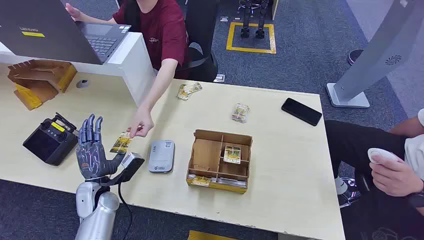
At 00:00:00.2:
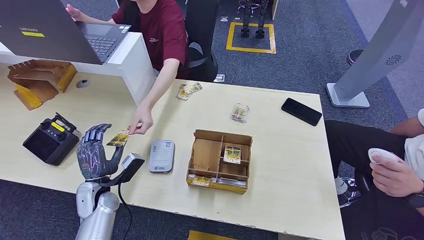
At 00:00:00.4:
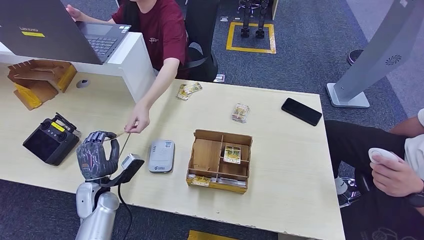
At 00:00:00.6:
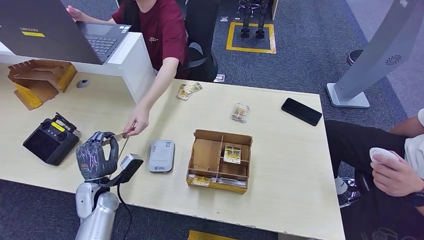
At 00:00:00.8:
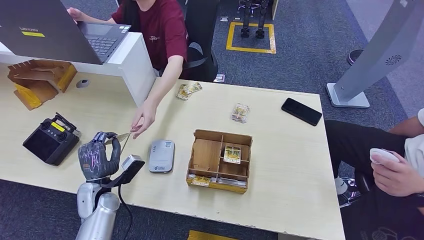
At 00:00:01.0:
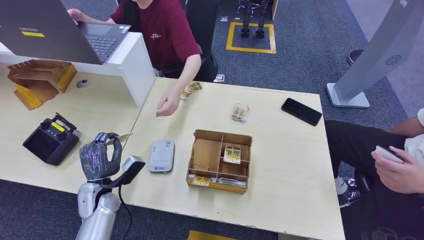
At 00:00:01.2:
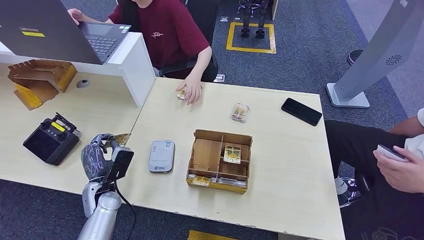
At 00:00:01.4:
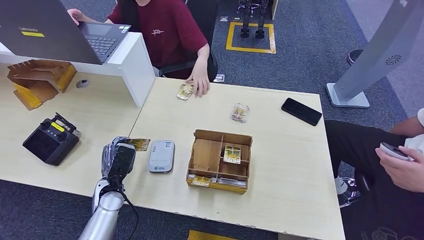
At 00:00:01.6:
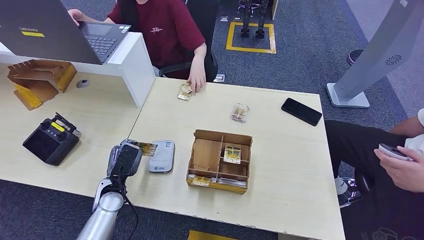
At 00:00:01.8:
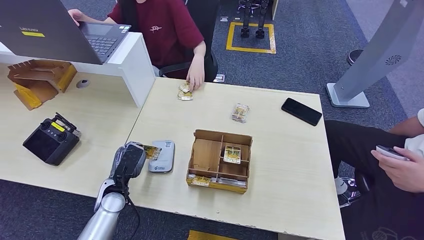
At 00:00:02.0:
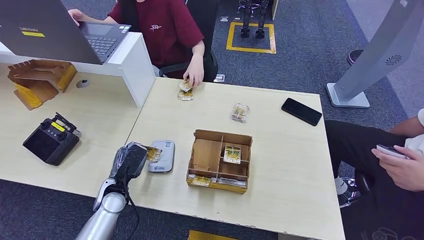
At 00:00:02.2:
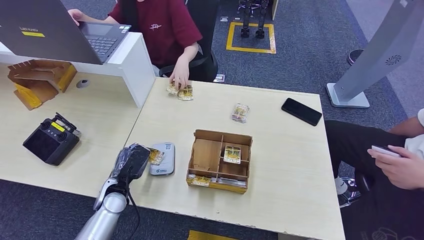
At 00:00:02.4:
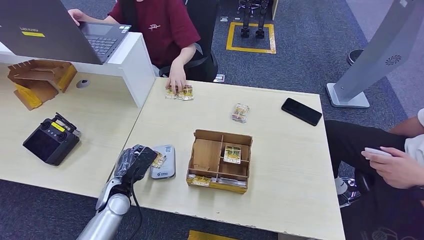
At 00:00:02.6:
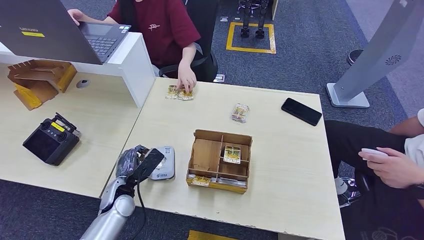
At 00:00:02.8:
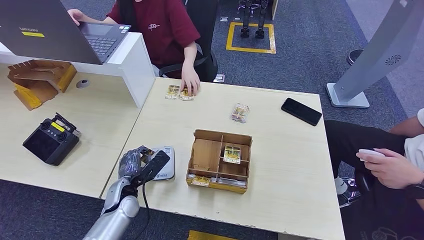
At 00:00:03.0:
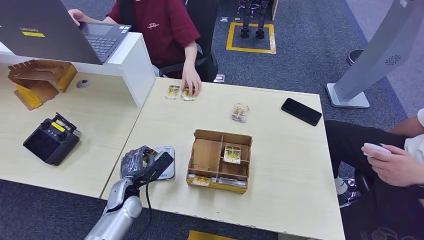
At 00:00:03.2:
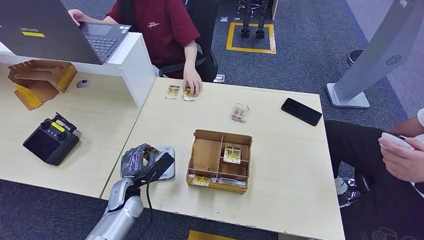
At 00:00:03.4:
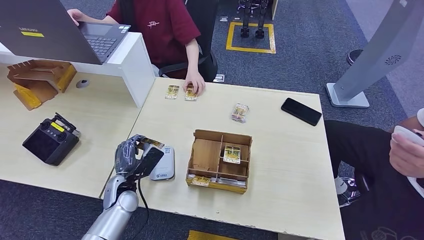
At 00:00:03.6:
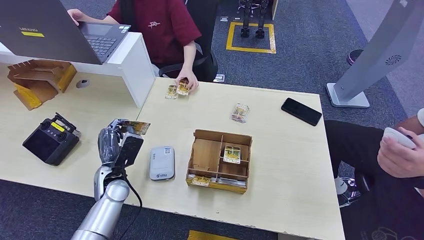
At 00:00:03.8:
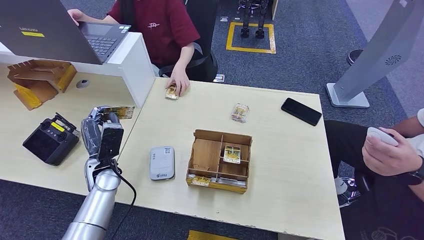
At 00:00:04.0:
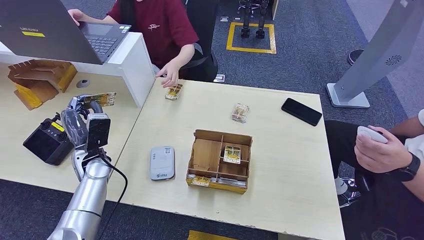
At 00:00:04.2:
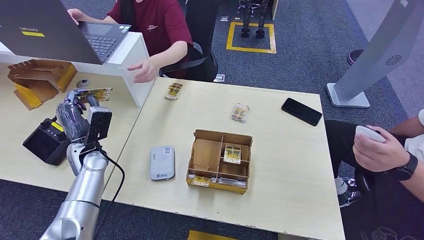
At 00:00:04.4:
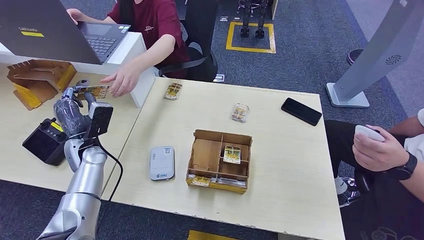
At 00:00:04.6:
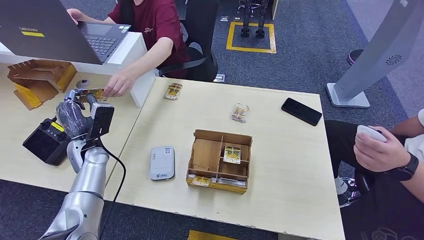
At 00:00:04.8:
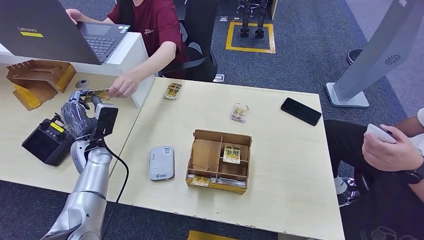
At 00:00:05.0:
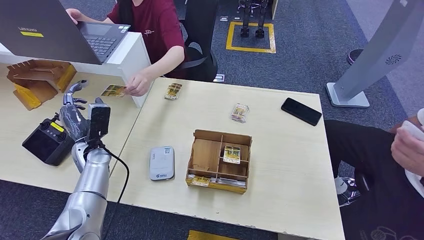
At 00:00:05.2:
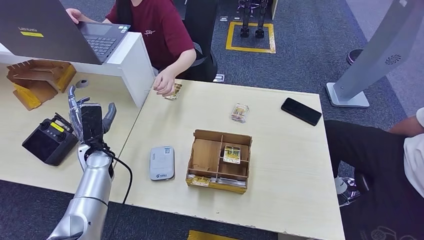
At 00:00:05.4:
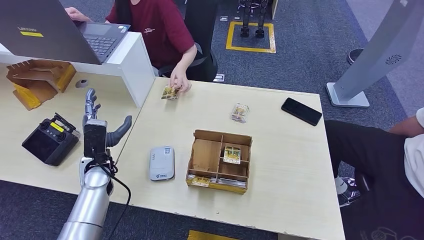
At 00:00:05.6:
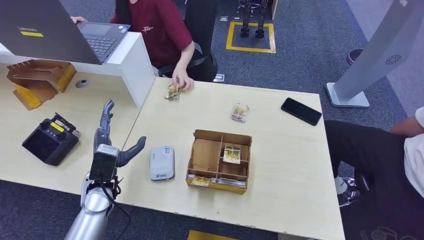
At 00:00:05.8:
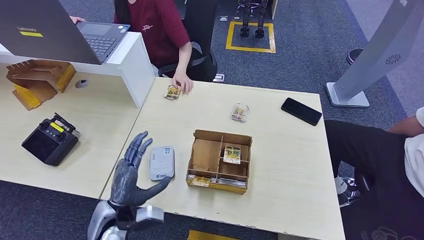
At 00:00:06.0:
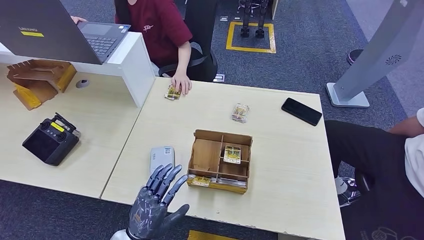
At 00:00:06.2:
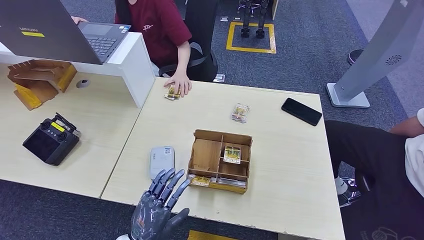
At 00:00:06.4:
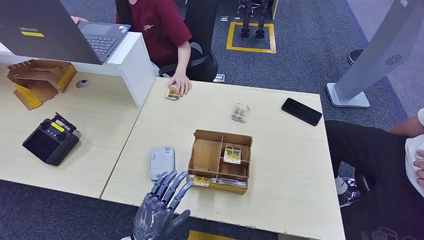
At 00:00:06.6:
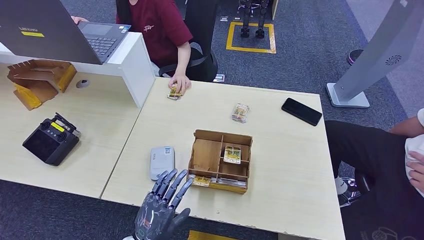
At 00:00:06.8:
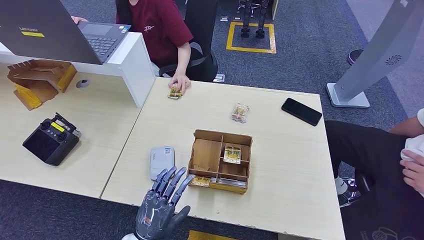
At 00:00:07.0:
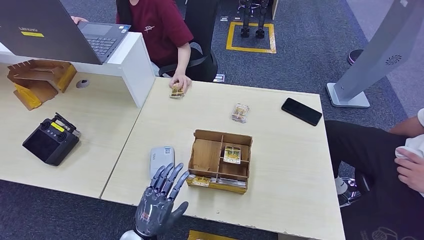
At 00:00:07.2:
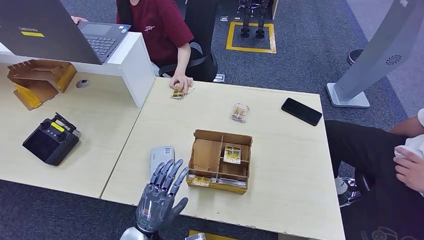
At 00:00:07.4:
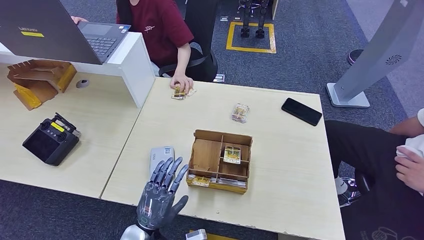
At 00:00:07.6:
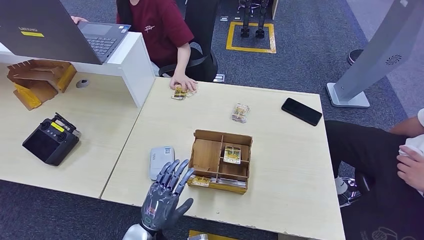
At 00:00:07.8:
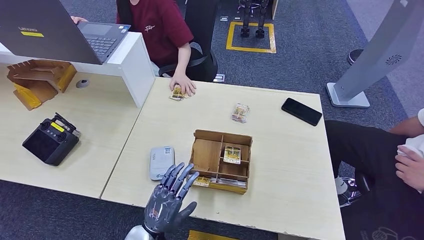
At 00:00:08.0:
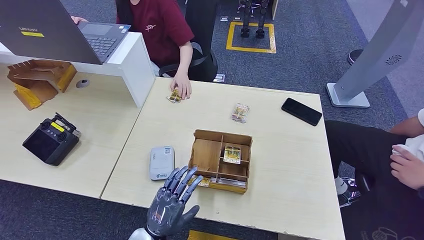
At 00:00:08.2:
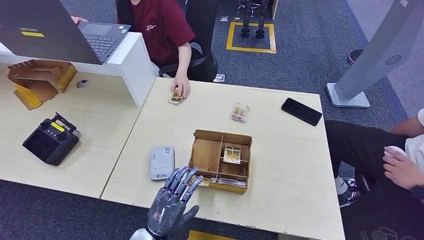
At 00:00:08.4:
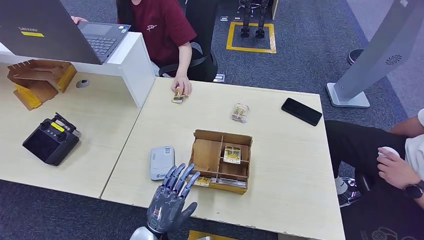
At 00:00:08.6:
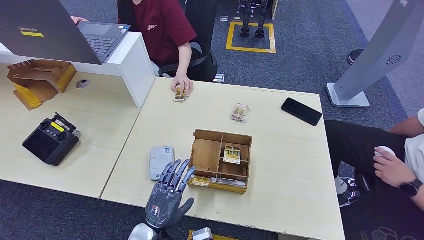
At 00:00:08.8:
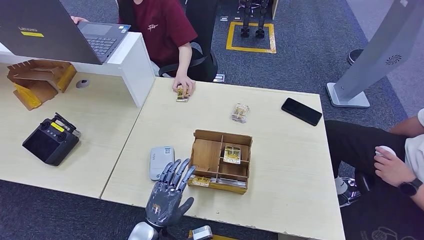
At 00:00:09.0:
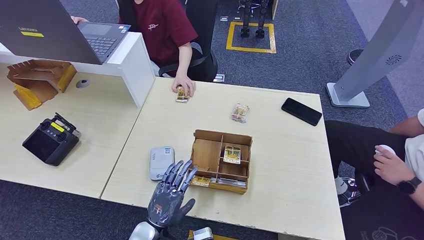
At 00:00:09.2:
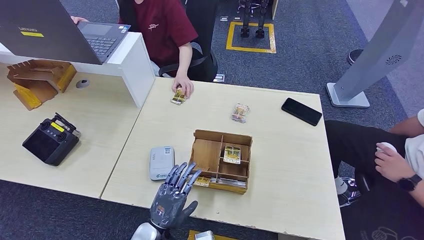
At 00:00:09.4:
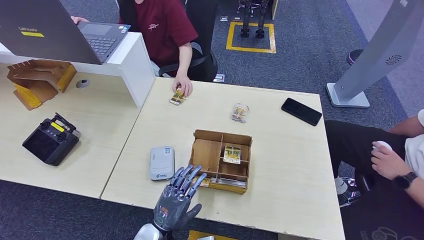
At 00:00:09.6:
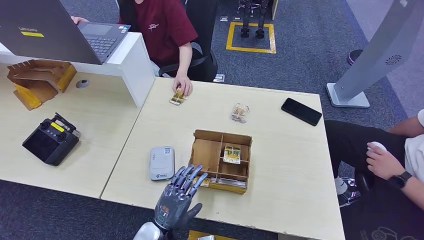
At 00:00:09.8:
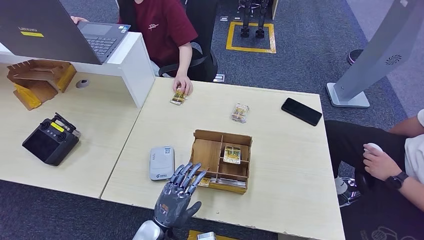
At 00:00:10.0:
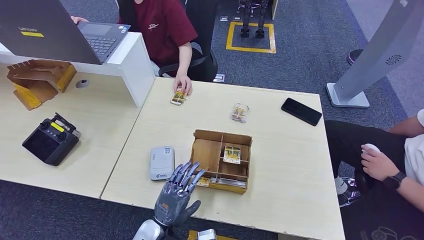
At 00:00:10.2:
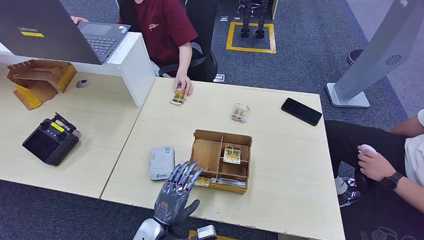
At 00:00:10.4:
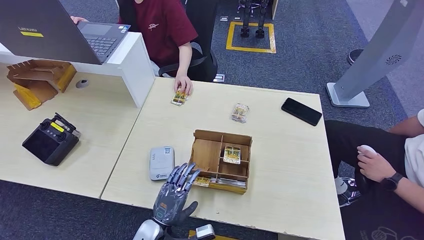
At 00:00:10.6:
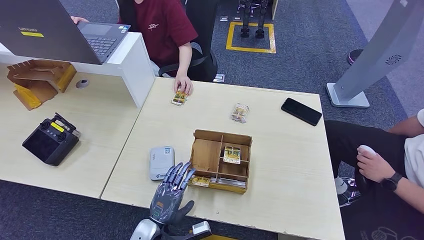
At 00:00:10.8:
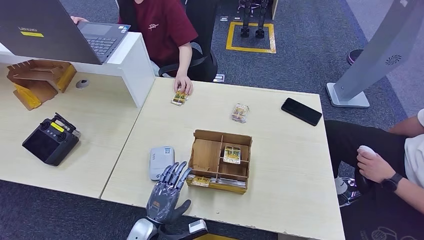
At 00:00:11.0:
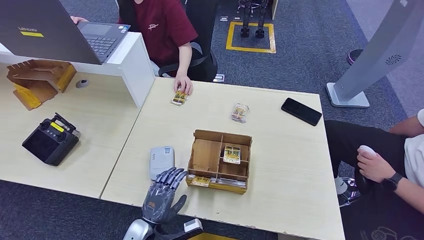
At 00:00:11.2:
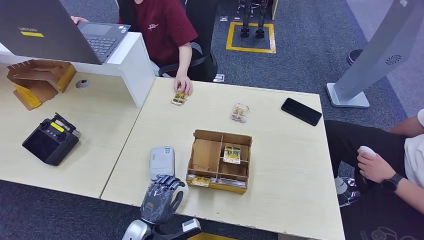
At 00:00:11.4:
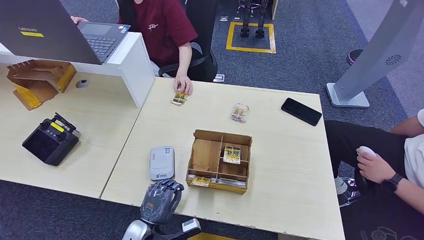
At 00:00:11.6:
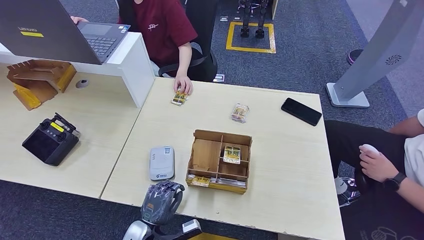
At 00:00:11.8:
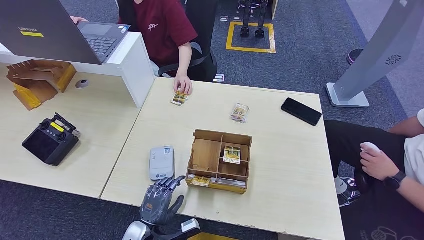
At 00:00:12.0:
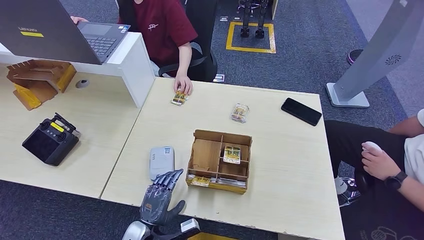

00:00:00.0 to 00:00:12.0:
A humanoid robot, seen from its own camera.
Step, 00:00:00.0 to 00:00:00.6: Take the ID card from the person's hand.
Step, 00:00:01.0 to 00:00:03.6: Place the ID card on the card reader.
Step, 00:00:03.8 to 00:00:05.2: Hand the ID card to the person.
00:00:03.0 to 00:00:04.4: The left hand travels upward, to the left and forward by roughly 20 cm.
00:00:04.4 to 00:00:06.0: The left hand heads backward and to the right, covering some 25 cm.
00:00:06.0 to 00:00:09.0: The hands move only a little.
00:00:09.0 to 00:00:12.0: The hands make only small movements.

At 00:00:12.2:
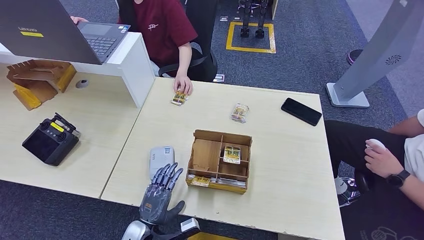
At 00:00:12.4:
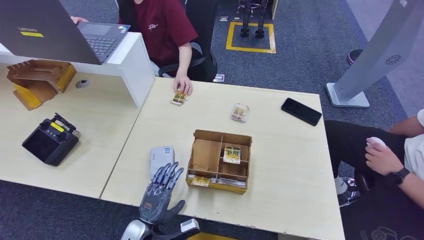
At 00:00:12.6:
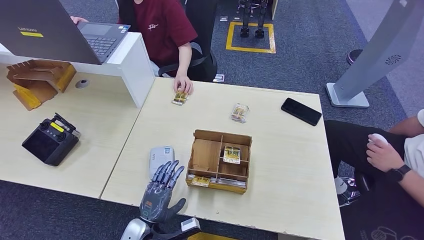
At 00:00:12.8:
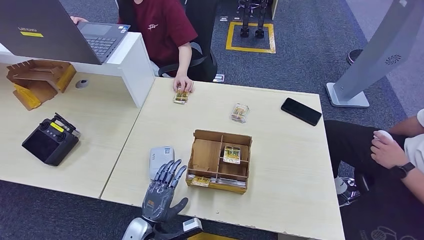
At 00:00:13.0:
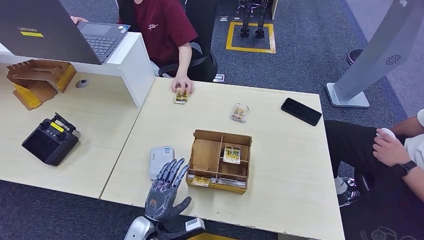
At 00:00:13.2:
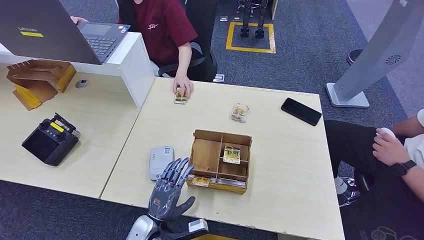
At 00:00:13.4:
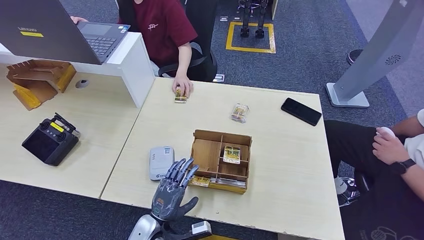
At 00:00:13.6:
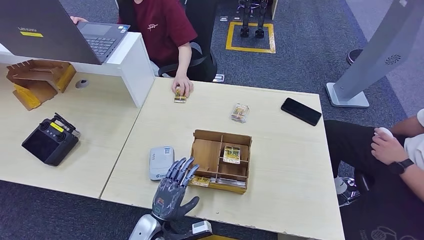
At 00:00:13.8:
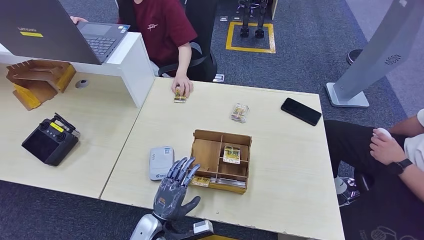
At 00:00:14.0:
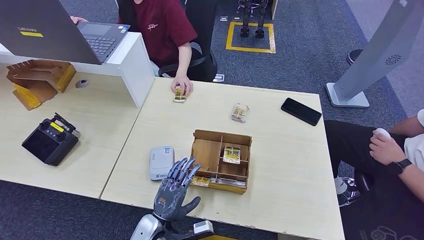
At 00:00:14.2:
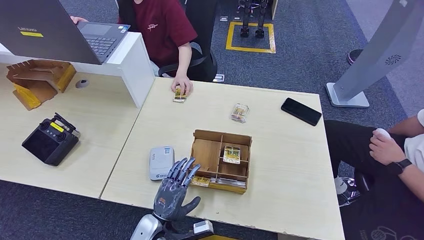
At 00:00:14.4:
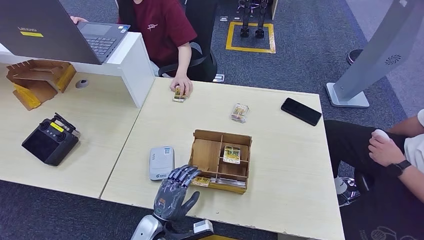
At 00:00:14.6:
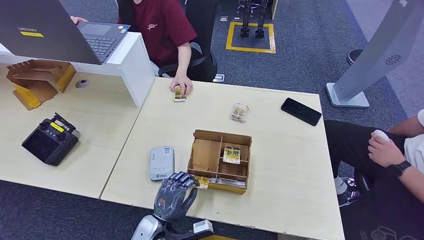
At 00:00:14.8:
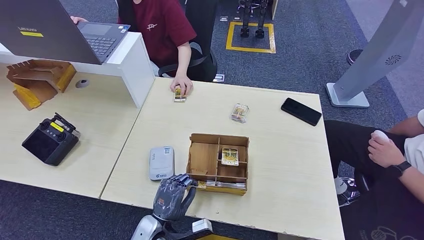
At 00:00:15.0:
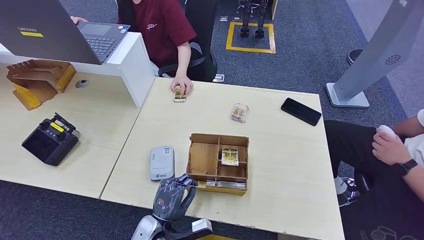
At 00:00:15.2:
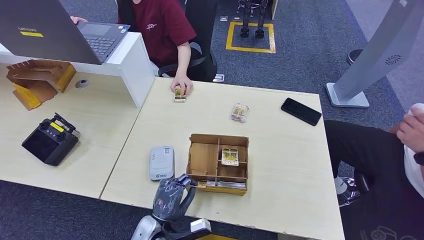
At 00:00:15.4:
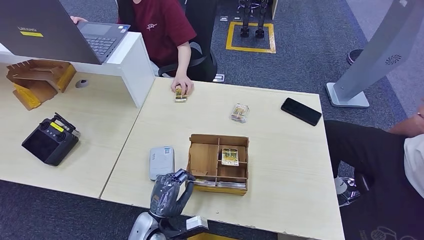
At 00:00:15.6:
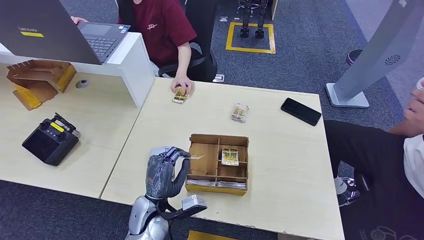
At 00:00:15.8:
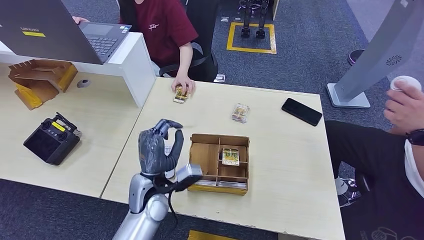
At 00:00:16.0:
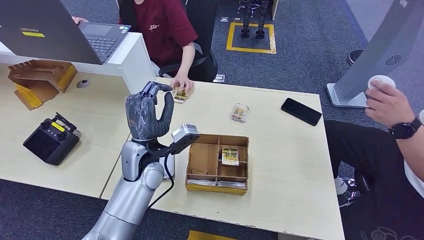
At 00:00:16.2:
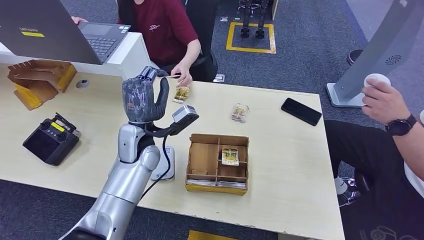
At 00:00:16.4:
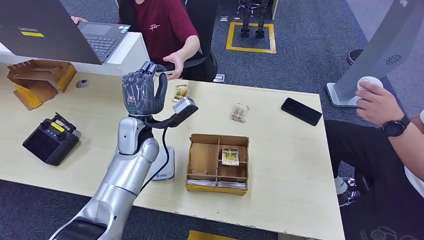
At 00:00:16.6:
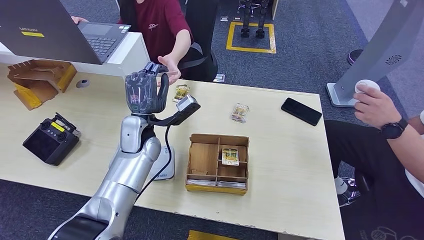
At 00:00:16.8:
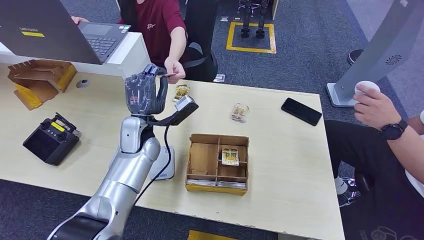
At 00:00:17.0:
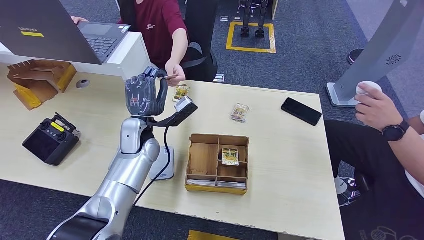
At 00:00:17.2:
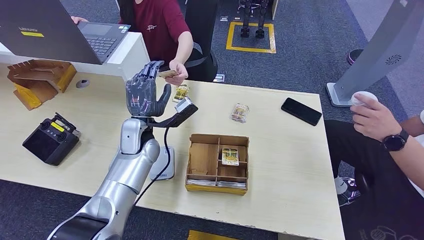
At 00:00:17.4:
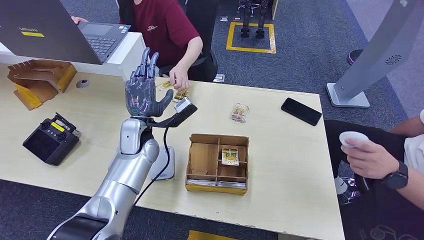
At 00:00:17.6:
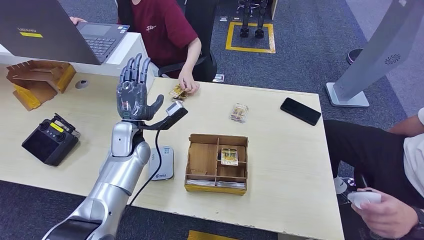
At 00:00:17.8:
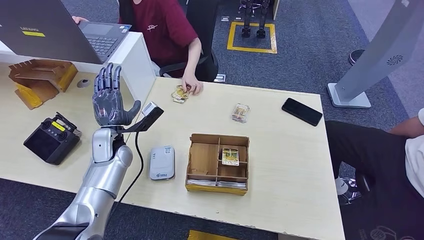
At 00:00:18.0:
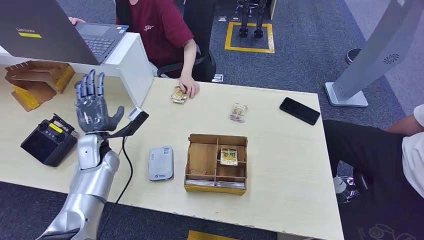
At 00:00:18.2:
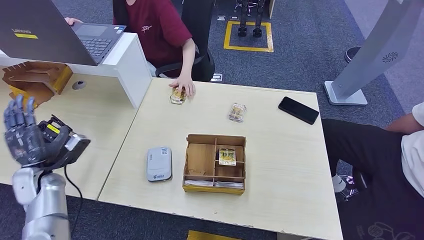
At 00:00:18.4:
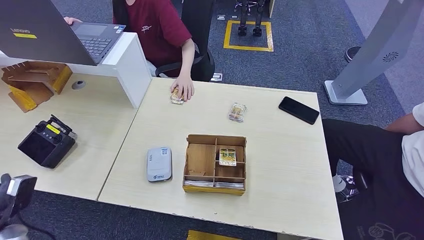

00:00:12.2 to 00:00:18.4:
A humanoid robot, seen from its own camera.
Step, 00:00:12.2 to 00:00:16.0: Pick up the room key from the key card box.
Step, 00:00:16.4 to 00:00:18.4: Hand the room key to the person.
00:00:12.2 to 00:00:15.4: The hands move only a little.
00:00:15.4 to 00:00:16.8: The left hand is displaced forward and upward by about 25 cm.
